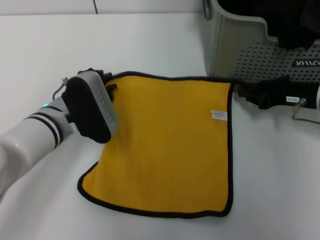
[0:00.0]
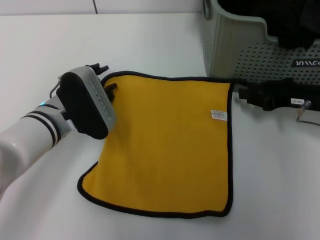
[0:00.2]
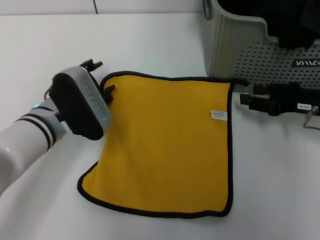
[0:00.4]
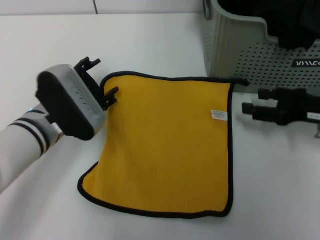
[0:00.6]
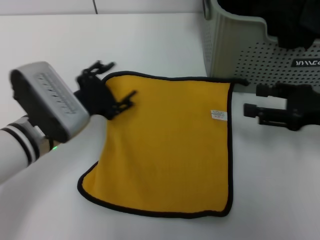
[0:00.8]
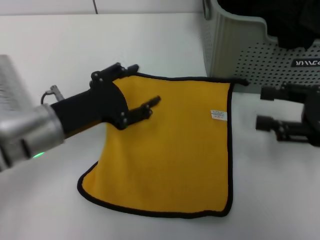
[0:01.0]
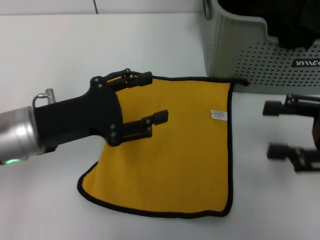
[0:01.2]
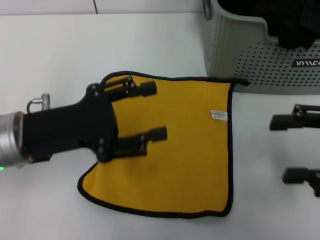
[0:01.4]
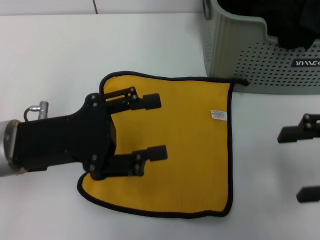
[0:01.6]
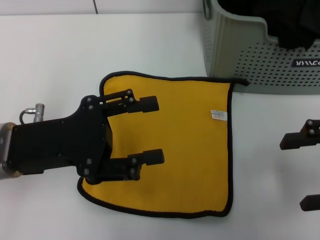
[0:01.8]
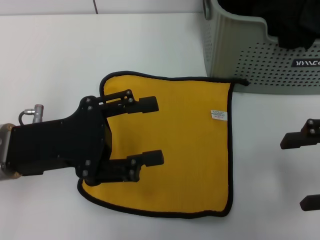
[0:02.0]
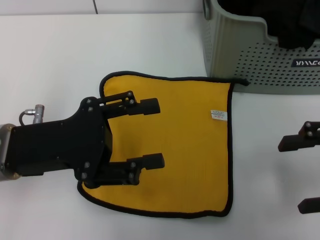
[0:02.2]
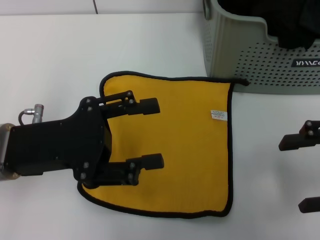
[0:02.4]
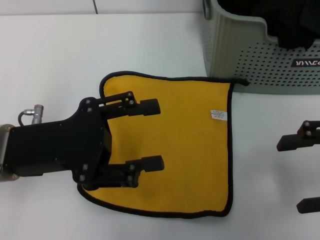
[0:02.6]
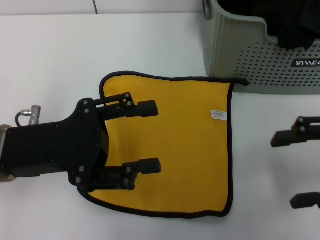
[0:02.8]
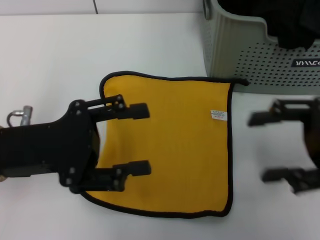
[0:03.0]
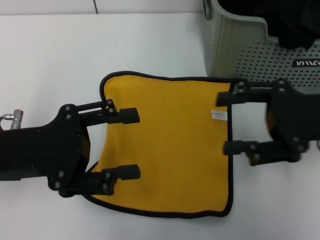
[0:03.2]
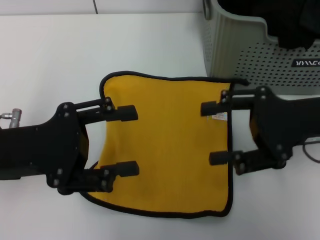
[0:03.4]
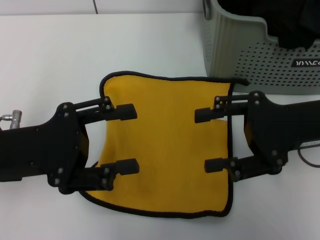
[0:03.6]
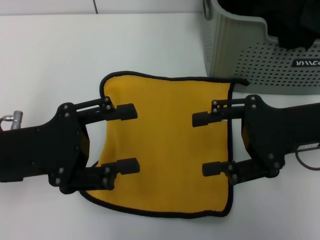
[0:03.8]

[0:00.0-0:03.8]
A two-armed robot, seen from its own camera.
Task of the whole recording: pick up the towel from the storage box and lay it flat on the table.
0:00.0 to 0:01.2: The left gripper shifts about 10 cm upward and backward, and opens up, while the right gripper moves backward and upward, roughly 10 cm, and opens.
0:02.6 to 0:03.8: The right gripper moves to the left and forward, roughly 10 cm.
